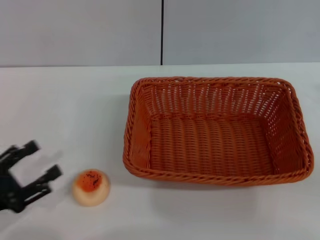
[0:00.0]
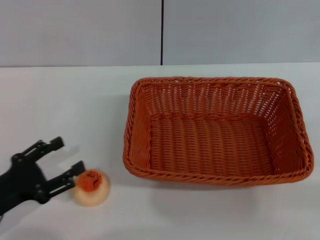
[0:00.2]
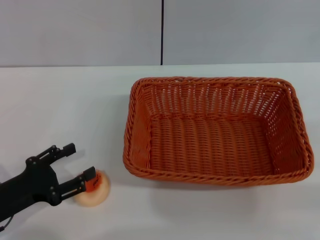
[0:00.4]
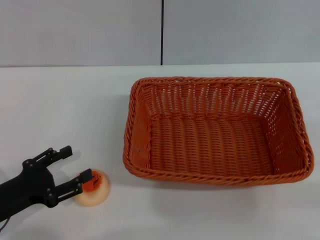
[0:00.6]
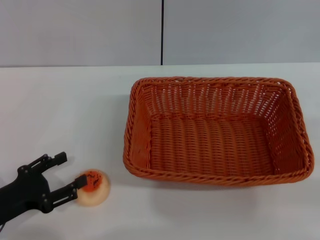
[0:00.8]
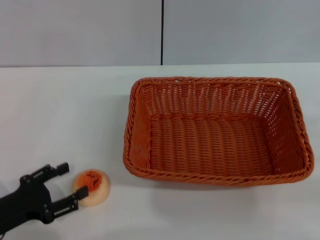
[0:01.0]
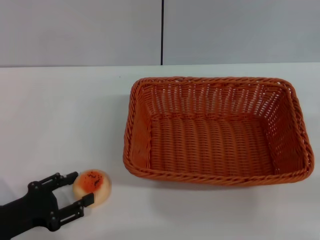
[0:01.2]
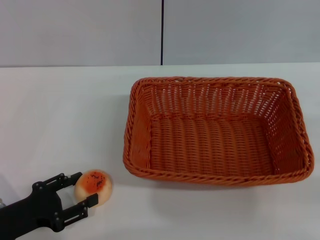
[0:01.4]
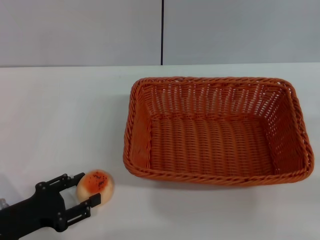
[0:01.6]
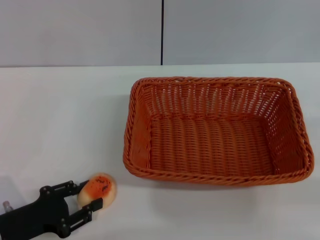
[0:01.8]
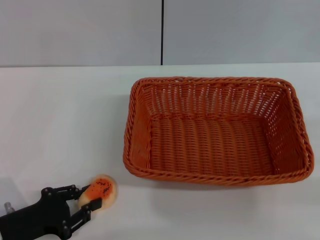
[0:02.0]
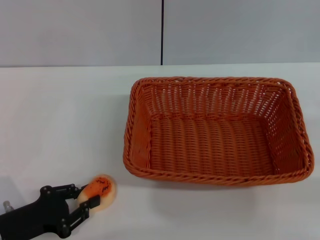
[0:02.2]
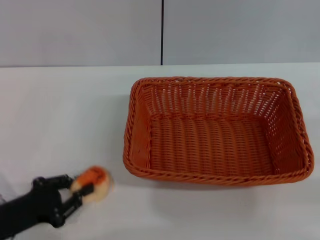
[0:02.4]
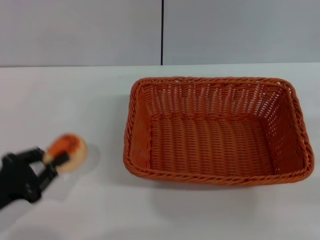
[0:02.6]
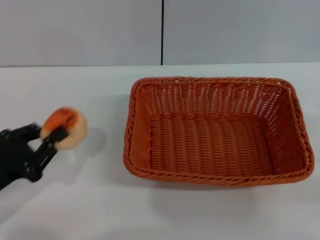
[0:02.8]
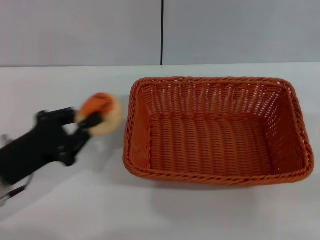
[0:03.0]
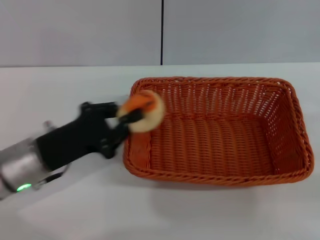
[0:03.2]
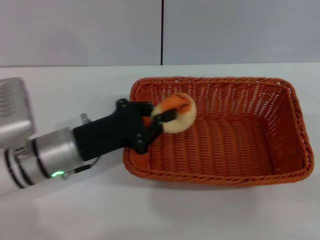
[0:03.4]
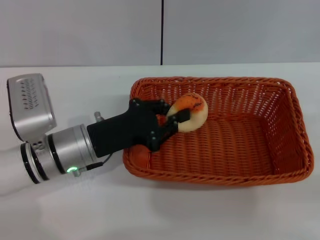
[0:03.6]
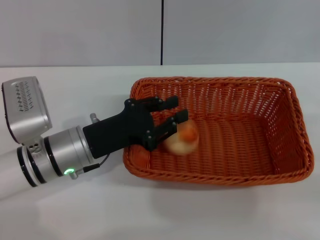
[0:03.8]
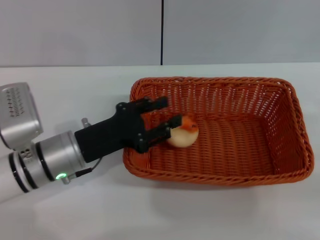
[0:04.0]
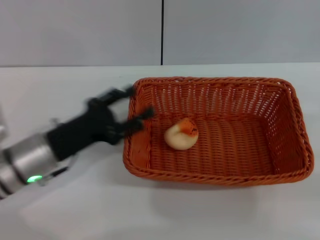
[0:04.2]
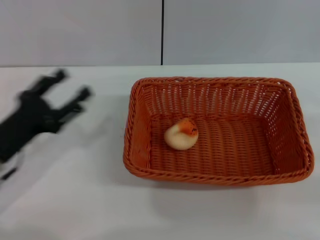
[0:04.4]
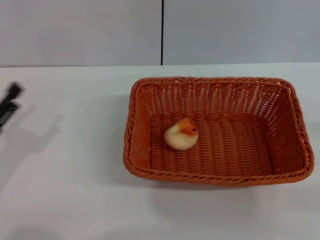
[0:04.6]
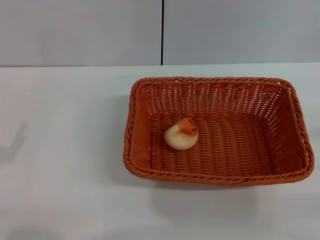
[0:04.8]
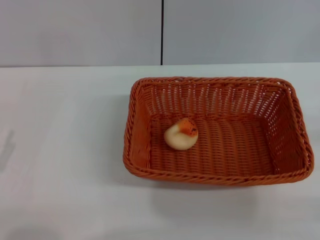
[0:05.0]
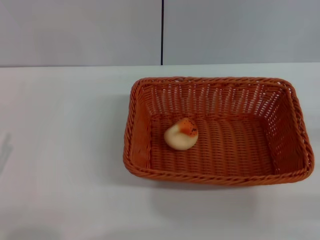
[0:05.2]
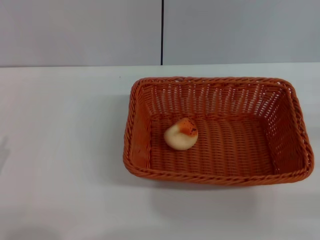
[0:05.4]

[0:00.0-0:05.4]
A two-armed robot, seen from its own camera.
Step, 0:00.0 to 0:02.6: Pick up the egg yolk pastry with the left gripper.
Step, 0:03.0 to 0:04.4: Place the egg yolk pastry into the basket with the left gripper.
0:00.0 to 0:01.4: The left gripper moves approximately 5 cm.
0:01.4 to 0:02.8: The left gripper closes.
0:02.8 to 0:04.0: The left gripper moves to the right and forward, some 15 cm.
0:04.0 to 0:05.4: The left gripper goes roughly 20 cm to the left and backward, and opens its fingers. The right gripper is displaced downward by some 5 cm.

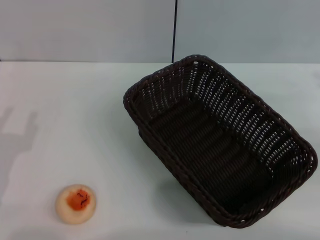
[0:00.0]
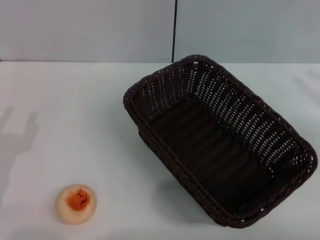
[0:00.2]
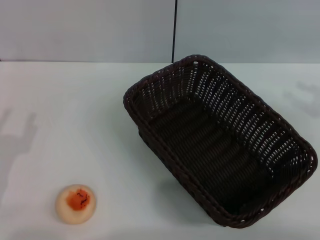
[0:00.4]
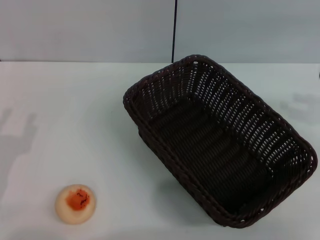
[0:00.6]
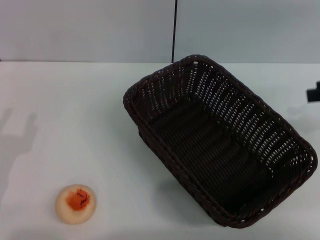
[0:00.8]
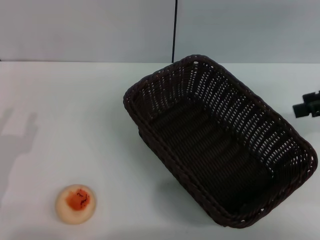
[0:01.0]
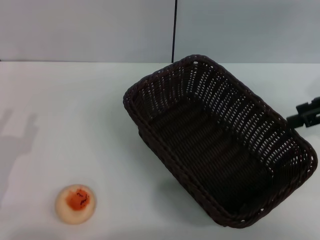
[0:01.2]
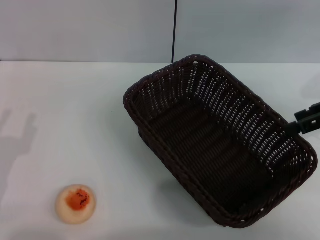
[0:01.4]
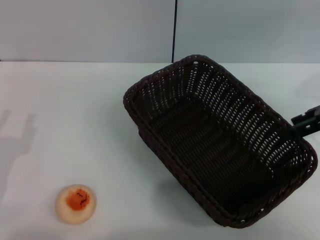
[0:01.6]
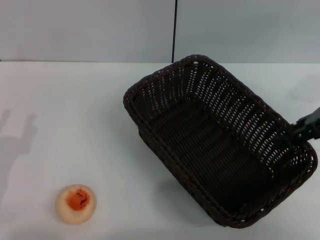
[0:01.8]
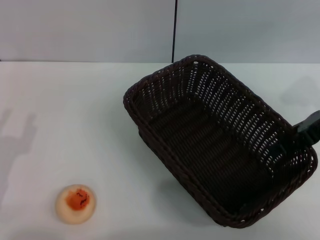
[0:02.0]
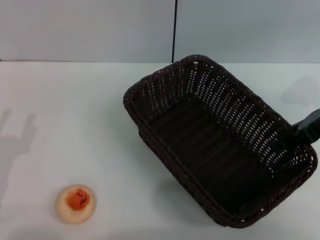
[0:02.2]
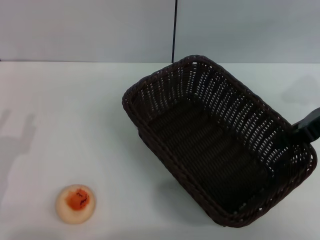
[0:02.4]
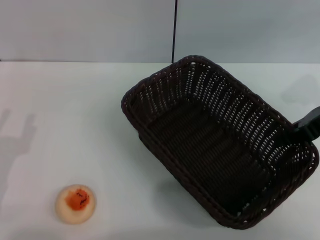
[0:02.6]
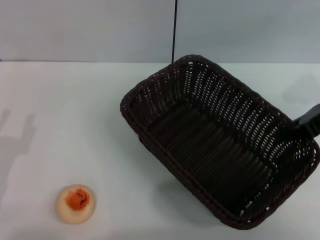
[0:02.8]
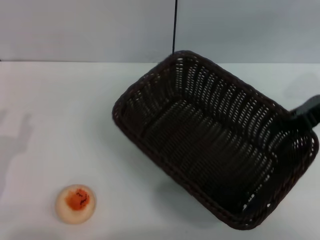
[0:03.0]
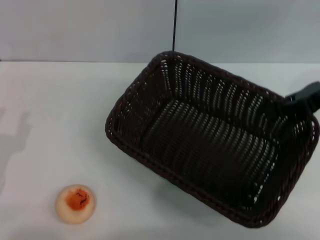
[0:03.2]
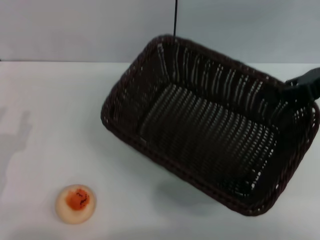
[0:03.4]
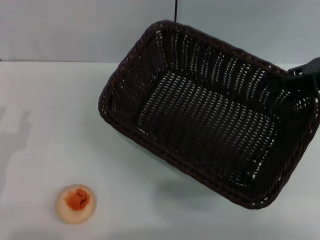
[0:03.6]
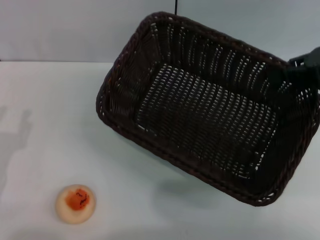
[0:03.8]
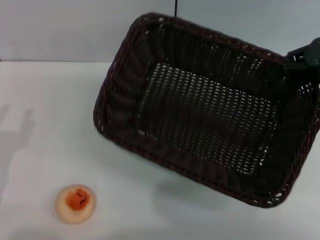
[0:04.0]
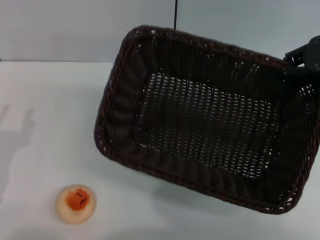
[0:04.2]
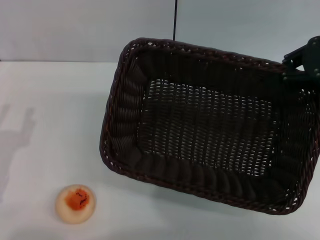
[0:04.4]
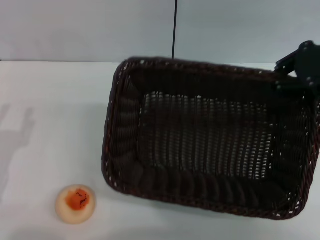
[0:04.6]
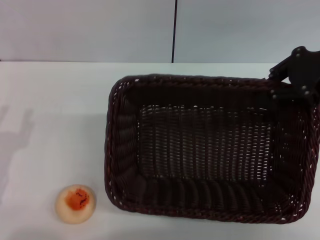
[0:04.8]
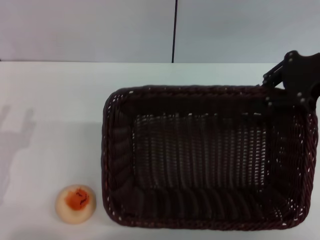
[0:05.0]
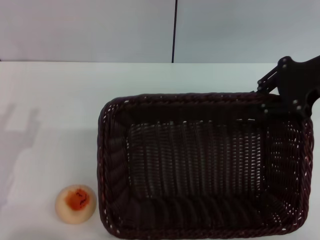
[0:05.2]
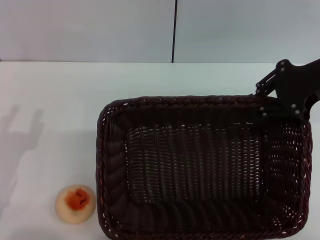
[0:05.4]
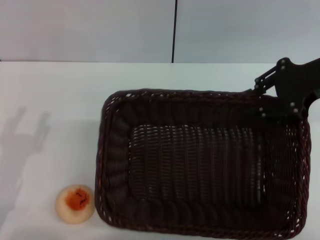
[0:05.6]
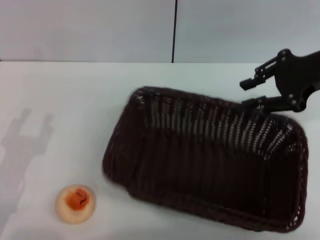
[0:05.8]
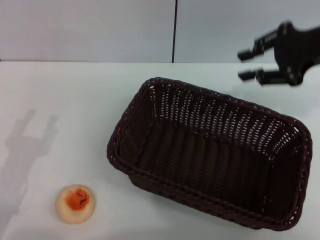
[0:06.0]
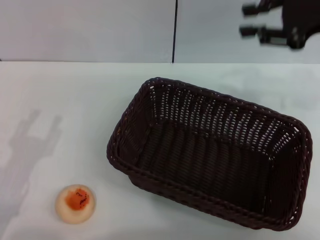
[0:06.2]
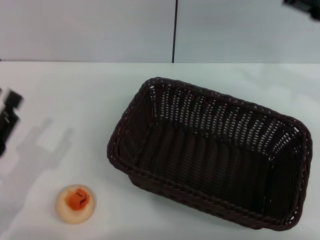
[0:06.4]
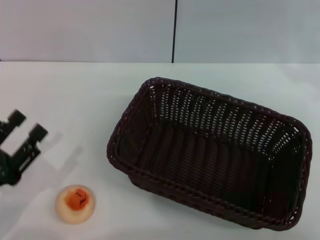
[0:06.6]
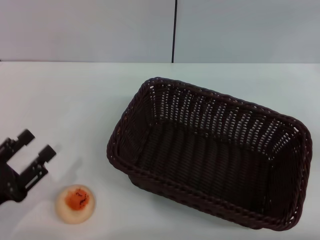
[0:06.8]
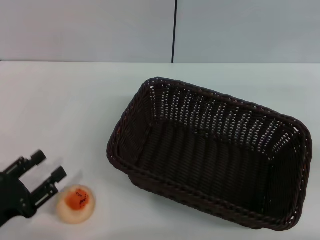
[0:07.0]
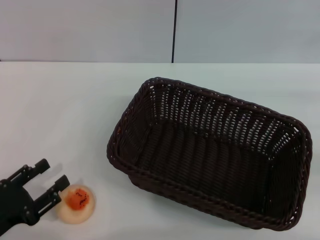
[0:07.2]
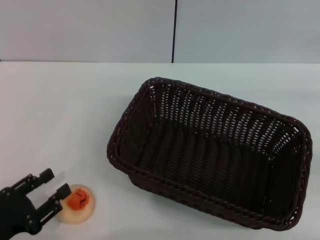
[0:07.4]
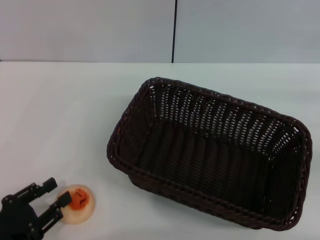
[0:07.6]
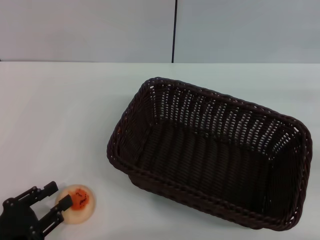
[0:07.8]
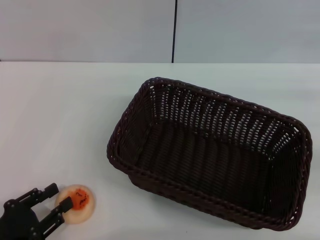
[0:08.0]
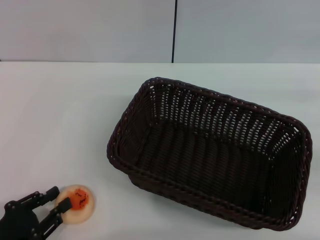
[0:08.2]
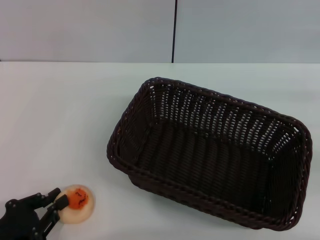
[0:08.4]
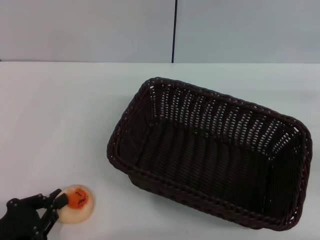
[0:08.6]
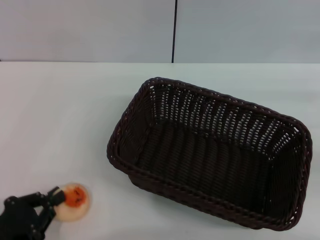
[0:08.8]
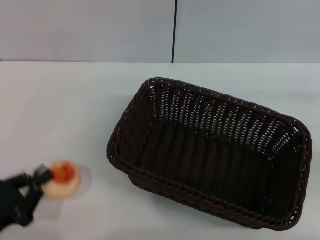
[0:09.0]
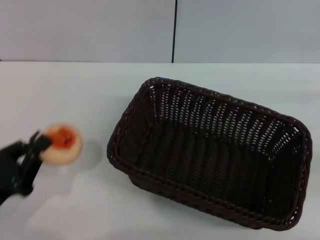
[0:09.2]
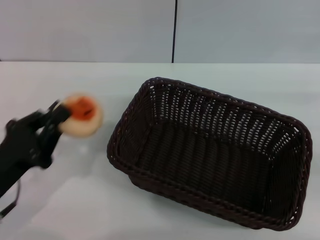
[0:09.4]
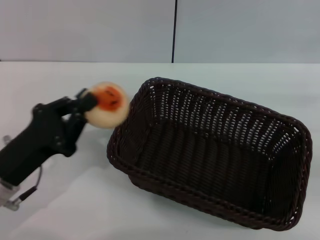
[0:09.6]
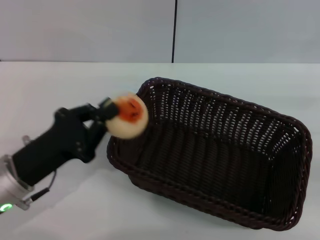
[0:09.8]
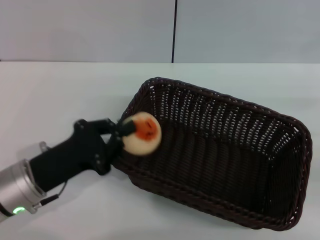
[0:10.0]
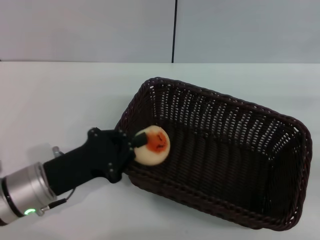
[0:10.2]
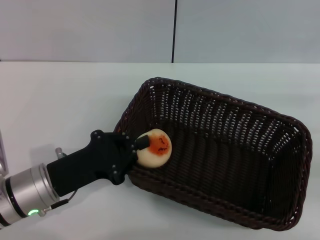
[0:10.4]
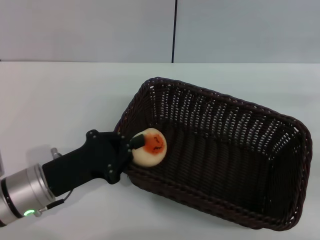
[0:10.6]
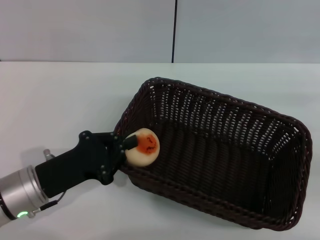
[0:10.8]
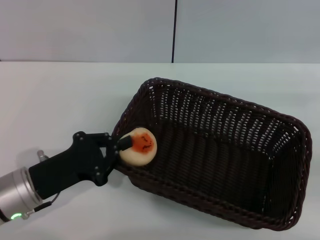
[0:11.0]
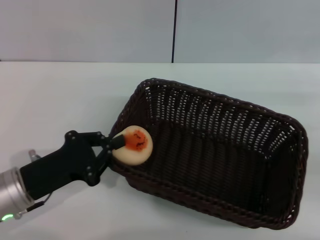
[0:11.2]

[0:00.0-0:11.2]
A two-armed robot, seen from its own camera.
Step, 0:00.0 to 0:05.8: Move the basket to the center of view with the right gripper.
Step, 0:06.2 to 0:09.0: Pick up the egg yolk pastry with the left gripper.
0:00.0 to 0:01.6: The right gripper goes some 10 cm to the left, forward and upward, and opens its fingers.
0:01.6 to 0:03.2: The right gripper closes.
0:06.4 to 0:08.0: The left gripper ends up about 5 cm from where it was; the right gripper moves downward, to the right and backward, about 15 cm.
0:08.0 to 0:09.6: The left gripper moves forward, to the right and upward, some 10 cm, and closes its fingers.
0:09.6 to 0:11.2: The grippers make only small movements.

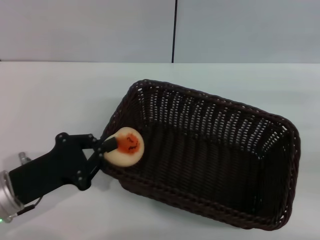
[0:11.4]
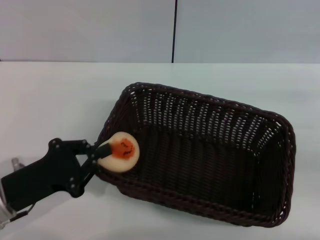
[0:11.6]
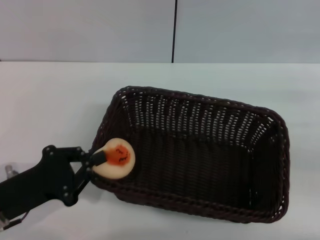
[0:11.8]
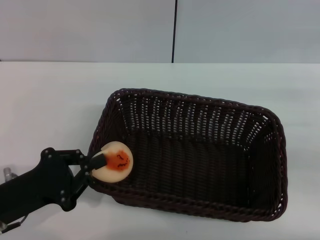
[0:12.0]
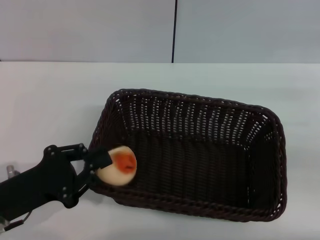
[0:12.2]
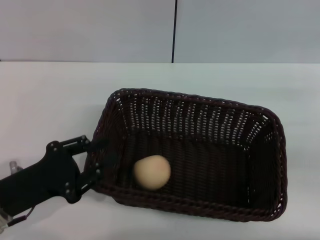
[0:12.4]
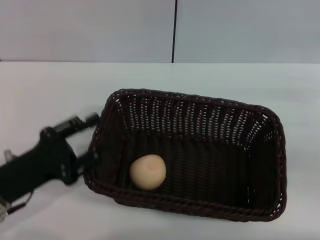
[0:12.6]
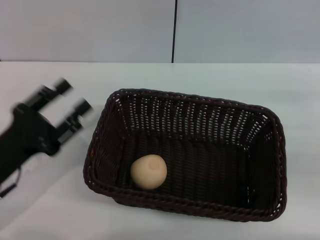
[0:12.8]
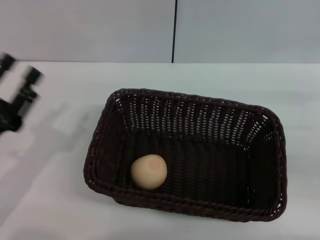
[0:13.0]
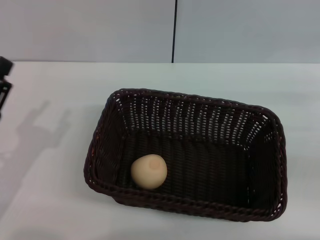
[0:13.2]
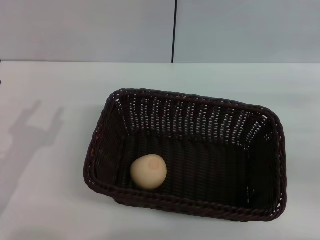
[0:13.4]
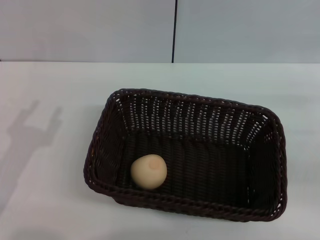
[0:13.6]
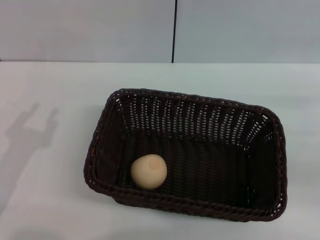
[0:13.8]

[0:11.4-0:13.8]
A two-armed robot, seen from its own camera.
0:11.4 to 0:12.6: The left gripper opens up.

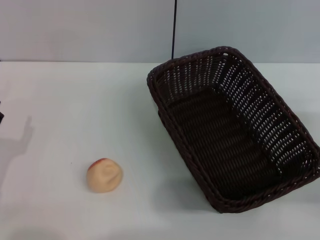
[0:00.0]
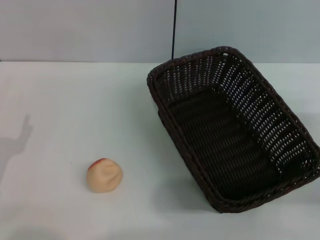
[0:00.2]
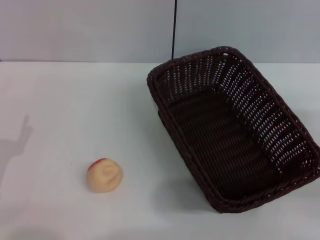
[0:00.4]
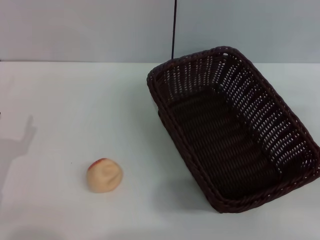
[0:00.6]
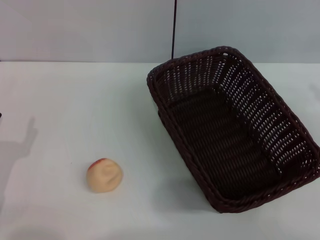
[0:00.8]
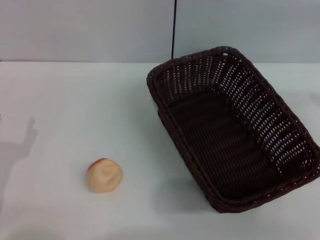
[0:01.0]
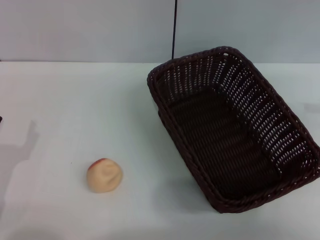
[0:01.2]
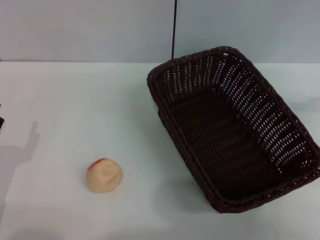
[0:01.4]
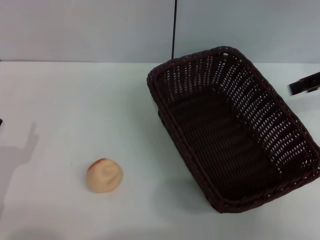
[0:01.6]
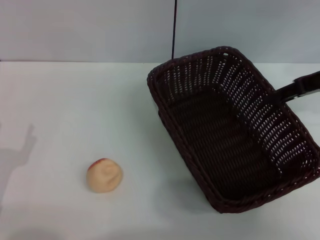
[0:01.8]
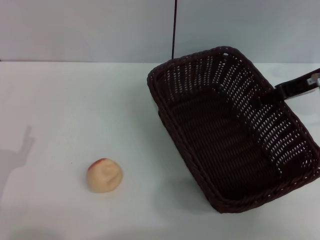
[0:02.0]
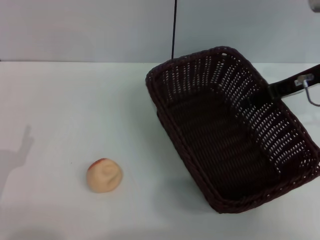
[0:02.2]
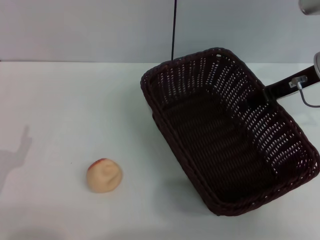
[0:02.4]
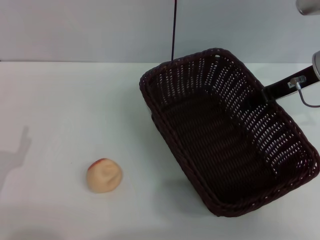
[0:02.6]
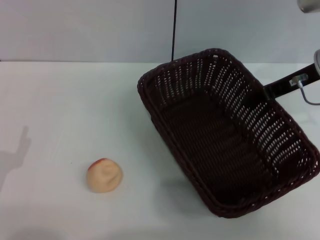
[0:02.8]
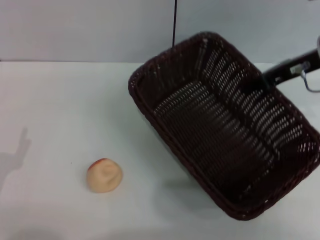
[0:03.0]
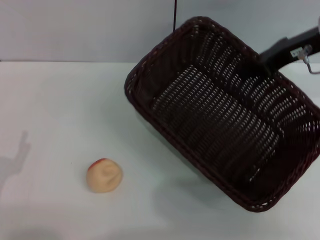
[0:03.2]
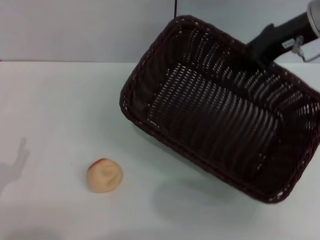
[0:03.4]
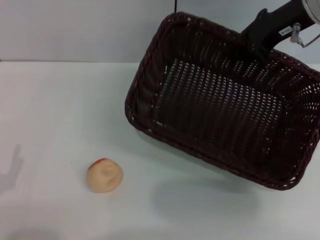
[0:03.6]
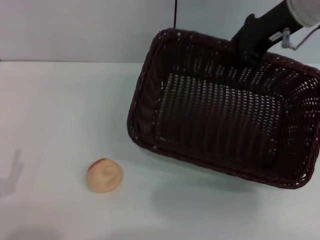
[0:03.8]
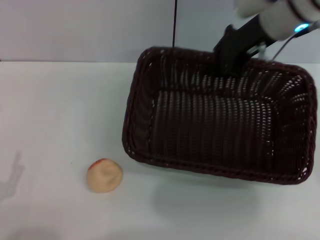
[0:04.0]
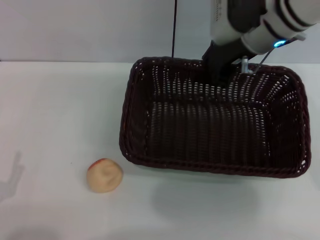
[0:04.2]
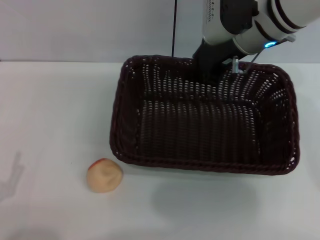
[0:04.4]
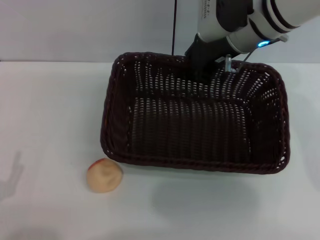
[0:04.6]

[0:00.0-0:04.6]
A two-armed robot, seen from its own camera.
0:00.0 to 0:01.6: The right gripper heads upward and forward, covering approximately 20 cm.
0:01.6 to 0:03.0: The right gripper shifts about 10 cm to the left, and closes.
0:03.0 to 0:04.6: The left gripper travels backward by some 5 cm. Meanwhile the right gripper travels to the left by some 10 cm.
